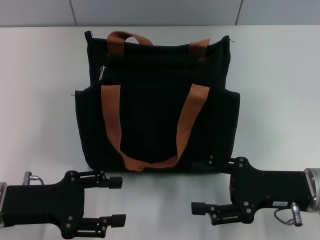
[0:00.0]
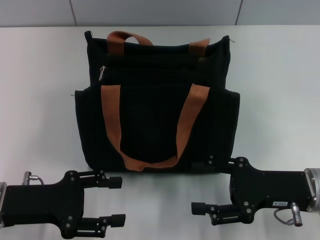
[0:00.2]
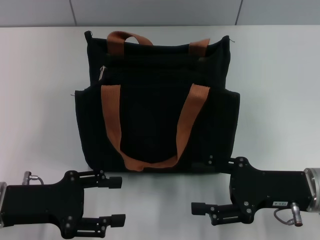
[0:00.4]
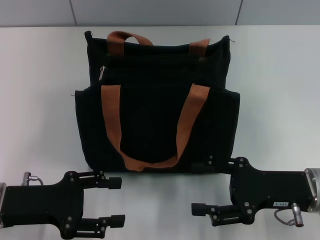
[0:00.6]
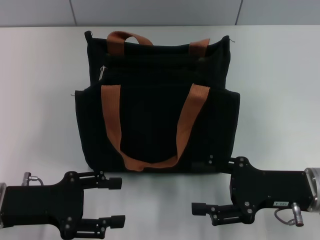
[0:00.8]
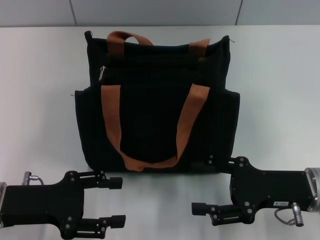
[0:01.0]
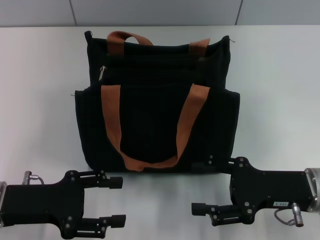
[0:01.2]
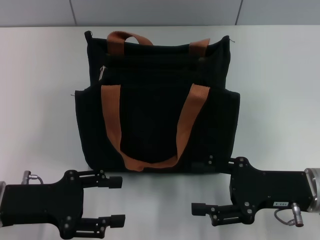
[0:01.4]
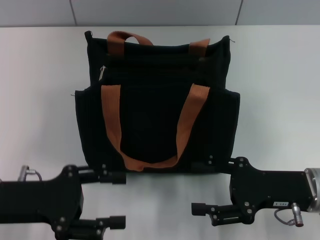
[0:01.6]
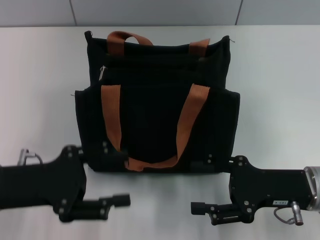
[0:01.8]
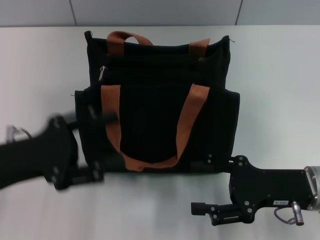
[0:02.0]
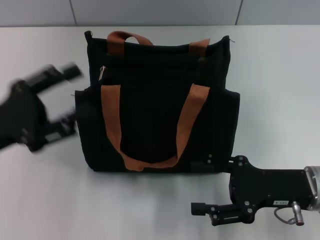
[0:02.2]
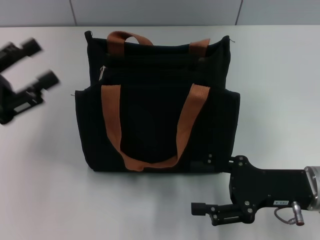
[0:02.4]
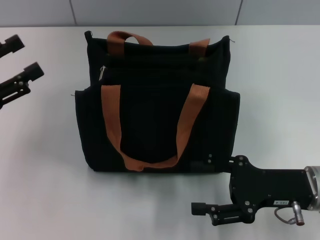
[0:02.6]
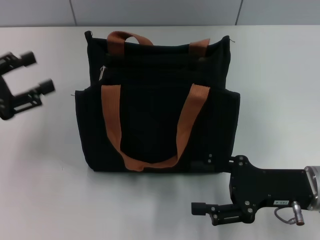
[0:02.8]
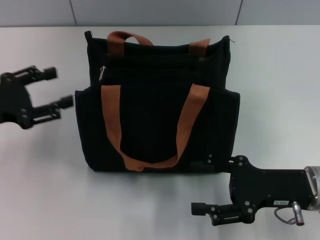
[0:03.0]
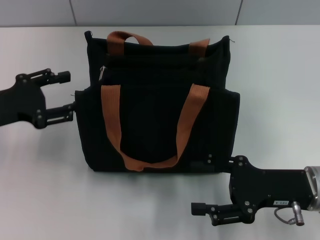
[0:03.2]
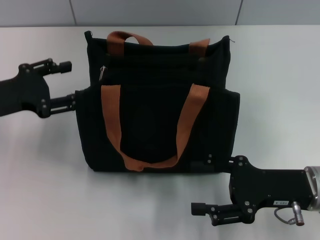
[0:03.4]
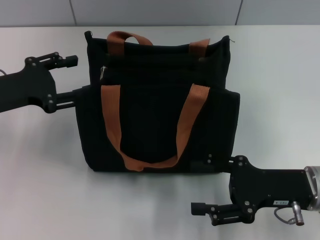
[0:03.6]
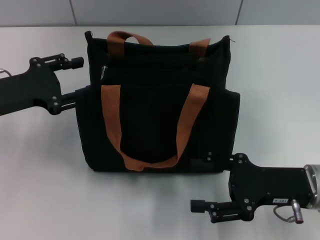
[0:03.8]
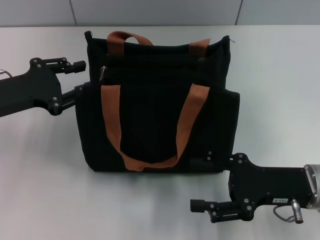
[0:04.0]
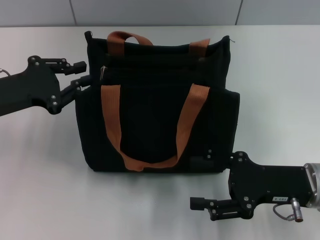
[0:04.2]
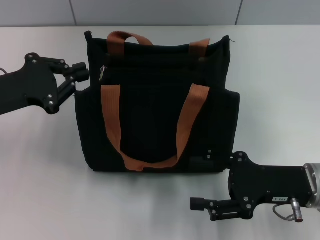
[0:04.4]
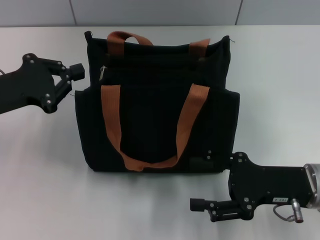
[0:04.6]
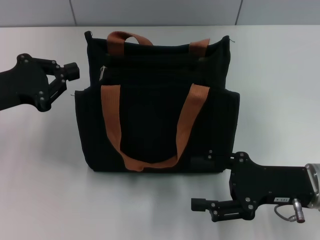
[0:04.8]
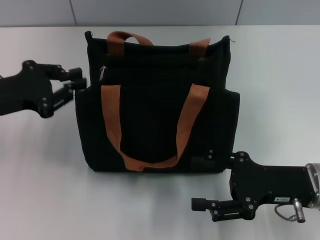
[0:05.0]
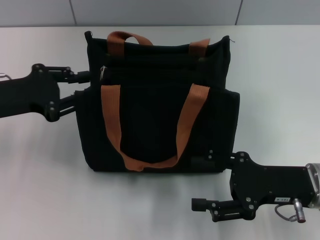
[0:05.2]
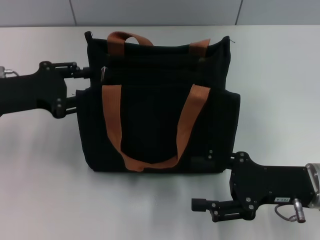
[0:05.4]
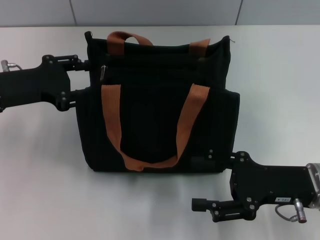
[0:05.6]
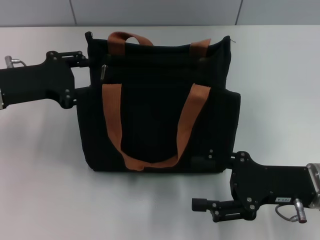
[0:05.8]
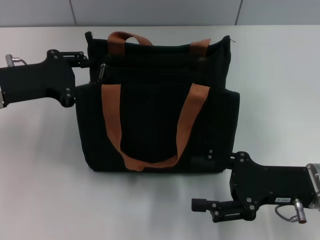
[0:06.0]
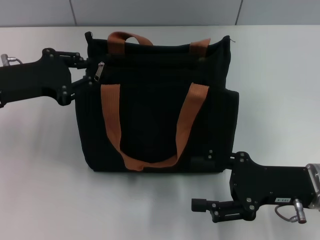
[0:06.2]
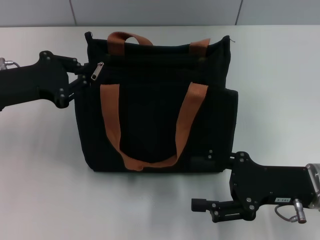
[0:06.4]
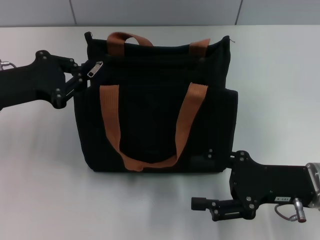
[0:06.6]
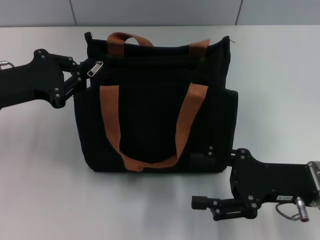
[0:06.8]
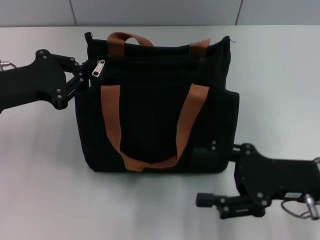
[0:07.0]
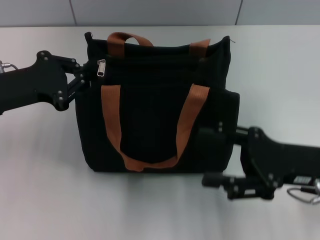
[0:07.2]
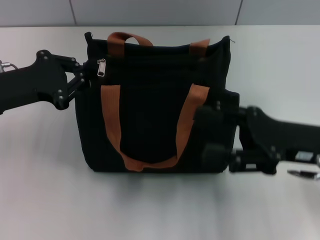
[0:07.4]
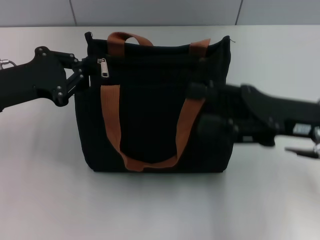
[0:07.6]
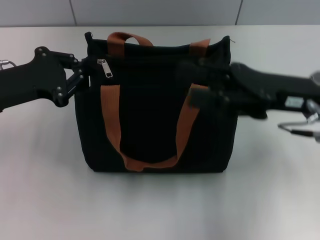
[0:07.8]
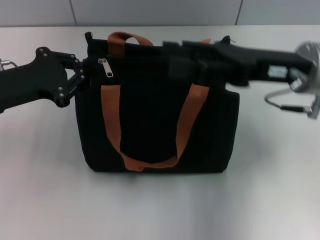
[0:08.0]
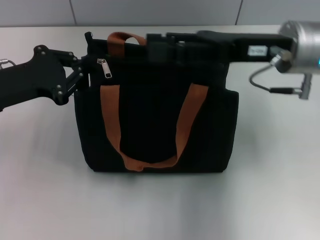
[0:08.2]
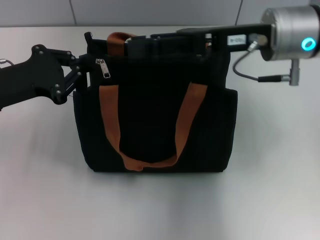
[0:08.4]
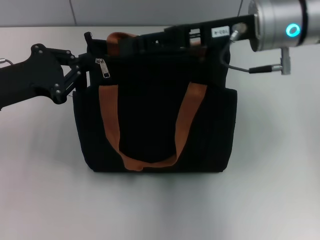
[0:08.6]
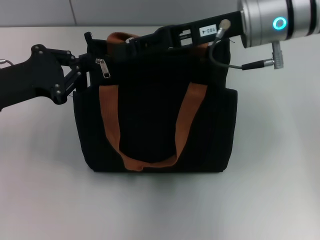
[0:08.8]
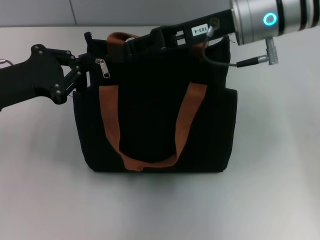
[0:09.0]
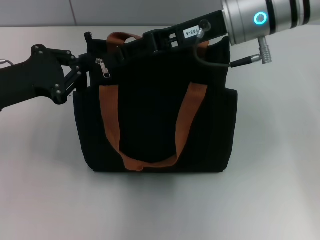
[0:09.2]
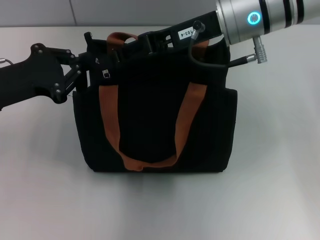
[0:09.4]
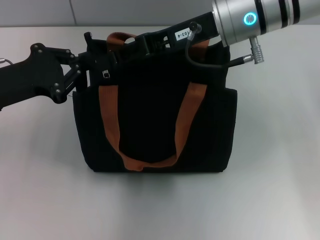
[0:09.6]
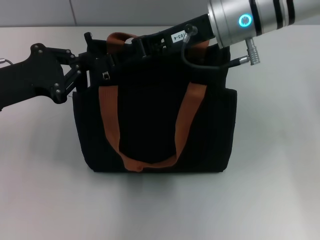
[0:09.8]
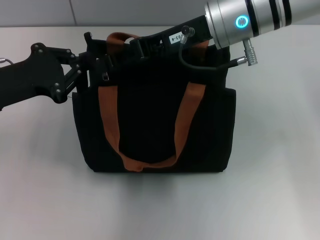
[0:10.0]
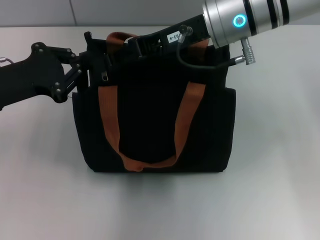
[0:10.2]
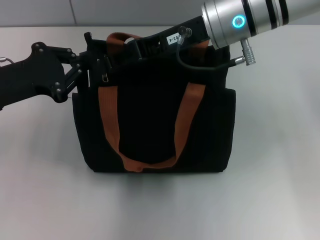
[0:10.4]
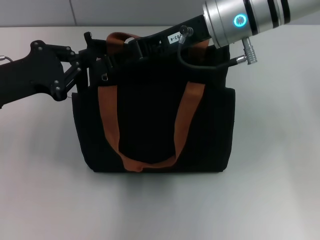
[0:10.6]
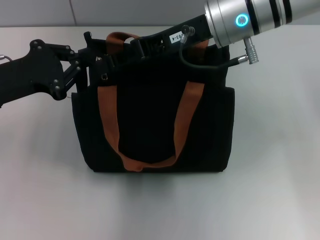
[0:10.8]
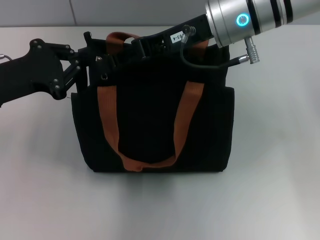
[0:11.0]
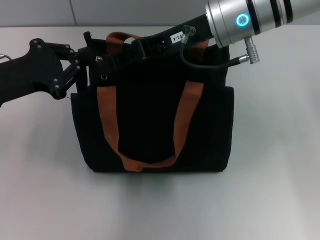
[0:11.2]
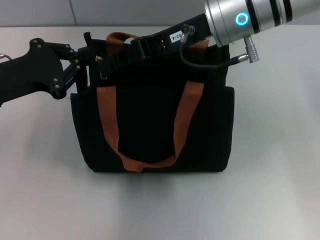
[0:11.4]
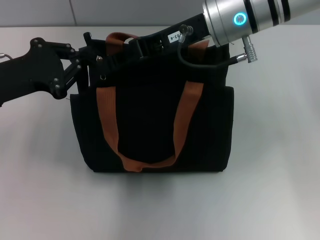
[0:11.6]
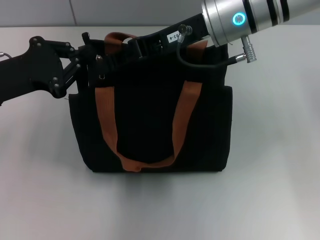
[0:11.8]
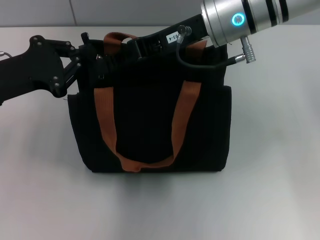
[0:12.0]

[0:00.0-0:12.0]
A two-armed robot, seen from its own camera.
0:00.0 to 0:01.6: The grippers move only a little.
0:01.6 to 0:03.0: The left gripper shifts roughly 10 cm forward and to the left.
0:03.0 to 0:04.4: The left gripper closes.
0:04.4 to 0:06.0: The left gripper opens up.
0:06.0 to 0:07.6: The right gripper travels upward by some 5 cm. Meanwhile the left gripper closes.
0:07.6 to 0:09.0: The right gripper travels forward, to the left and upward by some 15 cm, and closes its fingers.
0:09.0 to 0:10.4: There are only small adjustments of the grippers.
0:10.4 to 0:12.0: Both grippers stay about where they are.

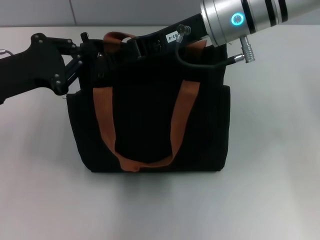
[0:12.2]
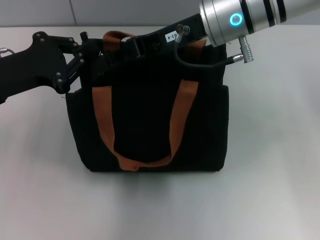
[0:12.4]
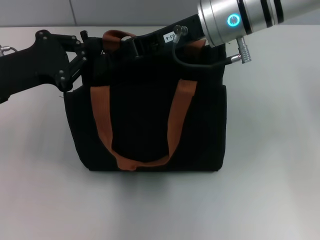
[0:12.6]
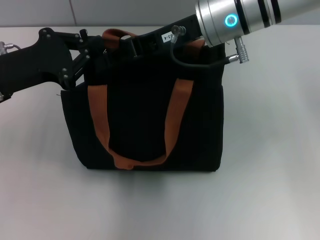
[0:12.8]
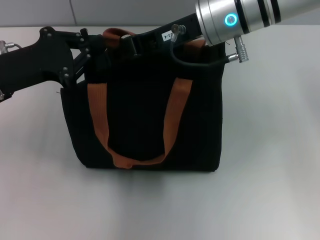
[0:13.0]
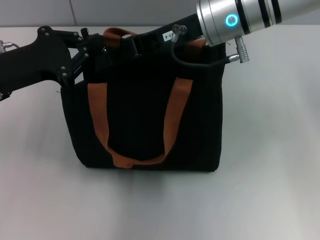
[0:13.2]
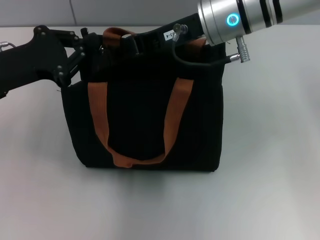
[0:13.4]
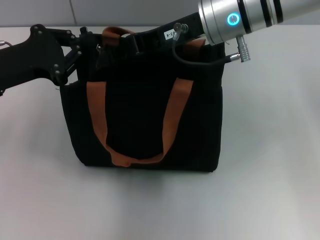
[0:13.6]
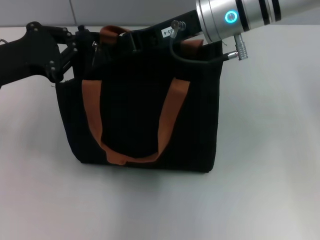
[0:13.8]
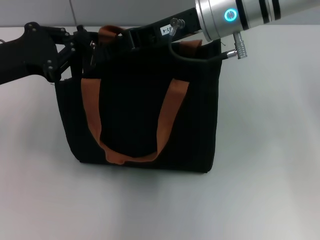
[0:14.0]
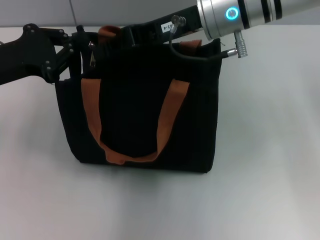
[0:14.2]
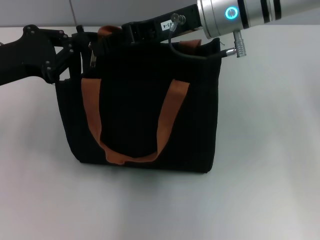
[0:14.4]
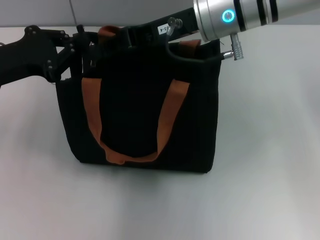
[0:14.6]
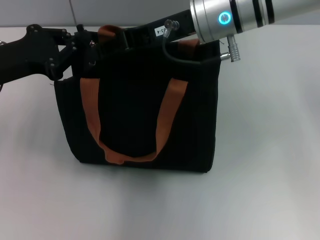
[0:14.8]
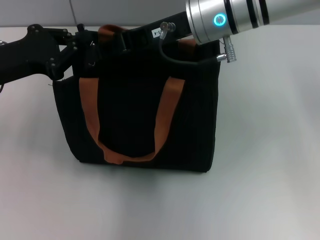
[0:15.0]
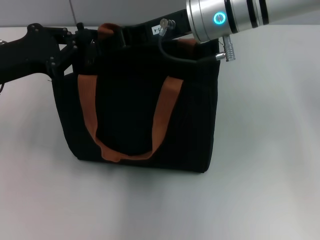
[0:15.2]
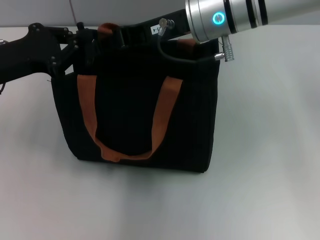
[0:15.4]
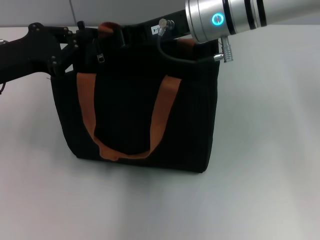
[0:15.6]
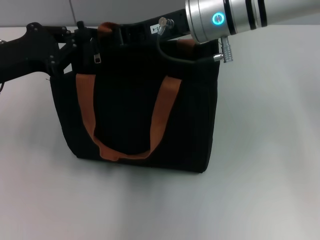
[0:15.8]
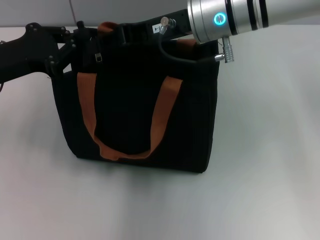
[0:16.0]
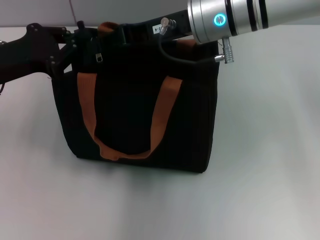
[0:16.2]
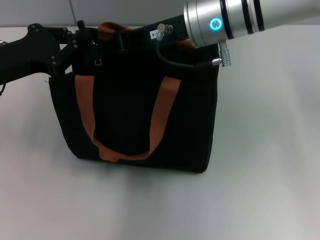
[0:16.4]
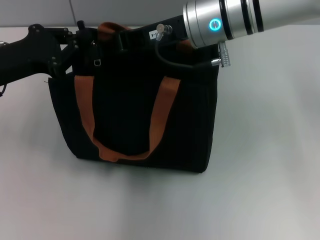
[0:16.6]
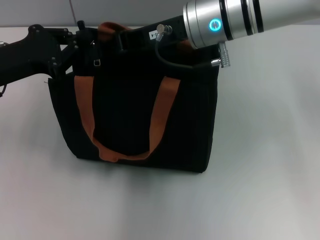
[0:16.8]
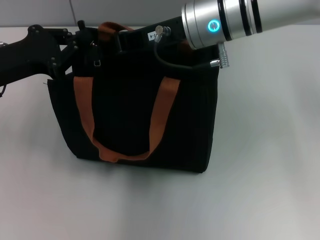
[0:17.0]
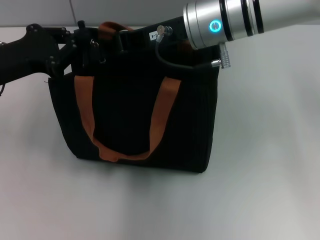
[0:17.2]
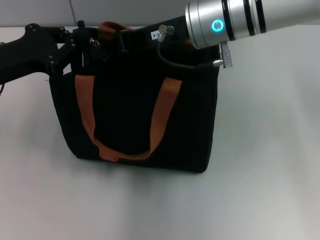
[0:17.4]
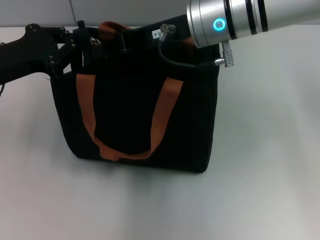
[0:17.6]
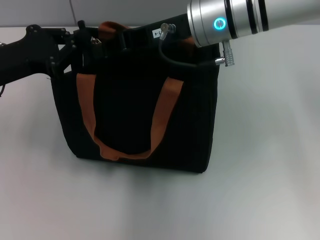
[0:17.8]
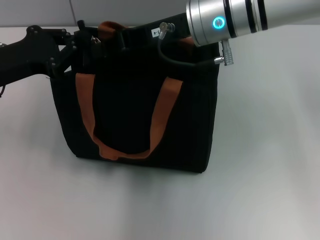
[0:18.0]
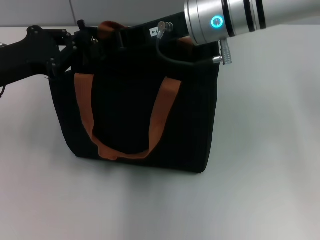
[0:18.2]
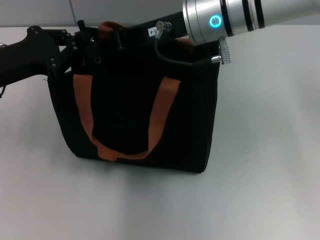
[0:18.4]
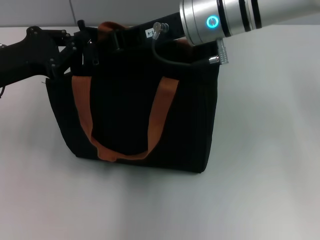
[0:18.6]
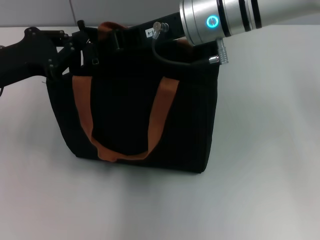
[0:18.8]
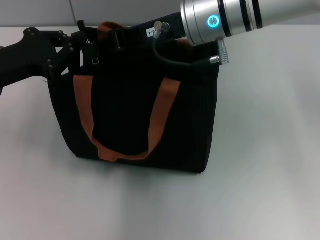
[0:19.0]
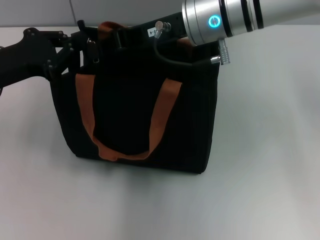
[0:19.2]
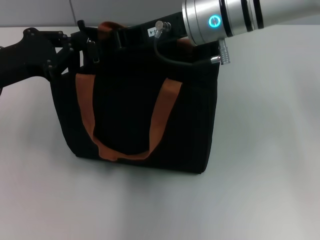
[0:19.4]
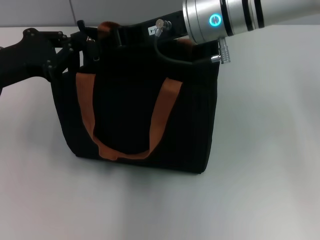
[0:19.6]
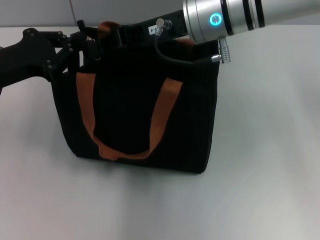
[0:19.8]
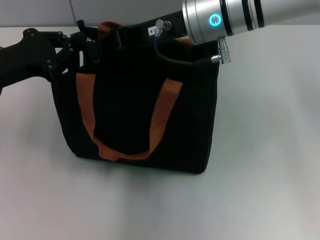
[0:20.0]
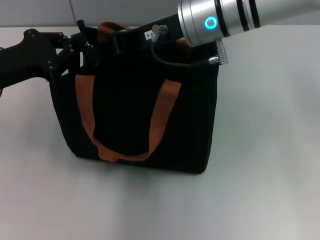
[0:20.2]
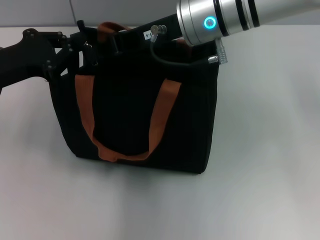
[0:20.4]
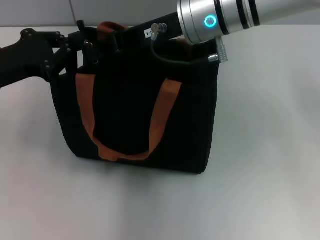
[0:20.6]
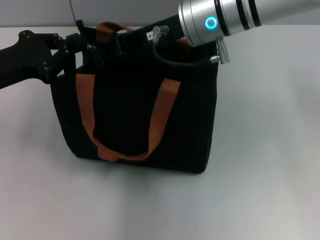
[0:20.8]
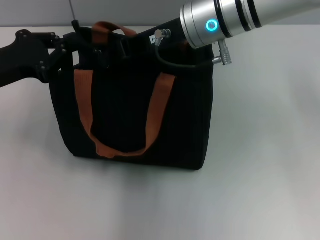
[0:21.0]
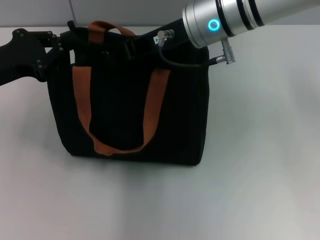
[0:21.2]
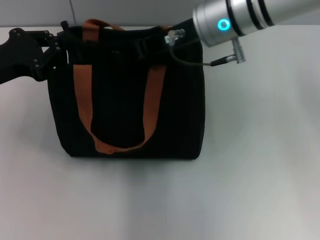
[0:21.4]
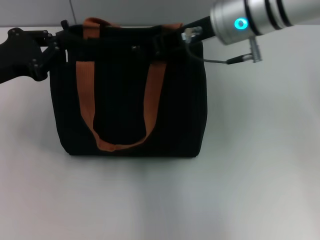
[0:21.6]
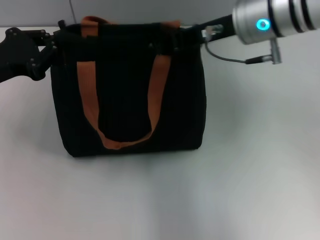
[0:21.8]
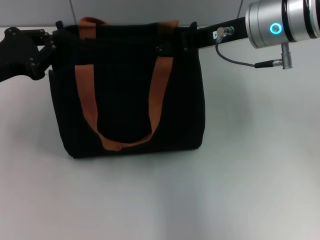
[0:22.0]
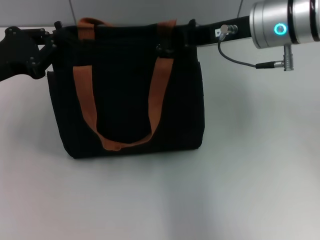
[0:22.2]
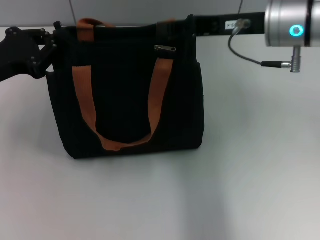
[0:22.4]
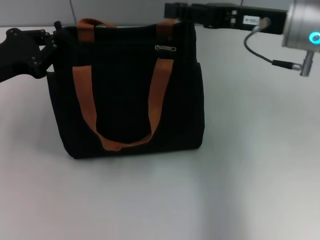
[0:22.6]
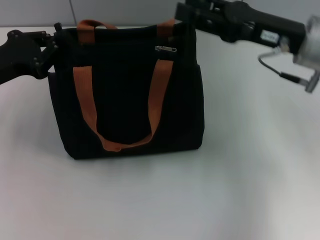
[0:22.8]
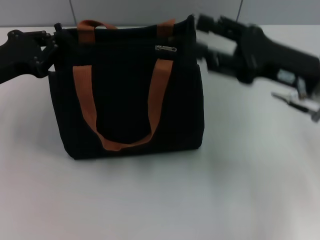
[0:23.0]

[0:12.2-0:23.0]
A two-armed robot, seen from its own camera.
Step, 0:12.2 to 0:22.6: Pull up the zipper with your right hand.
0:12.2 to 0:15.2: The grippers make only small movements.
0:15.2 to 0:20.0: Neither gripper changes place.
0:20.0 to 0:21.4: The grippers move only a little.
0:21.4 to 0:23.0: The right gripper travels to the right, backward and downward by some 15 cm, and opens up.
